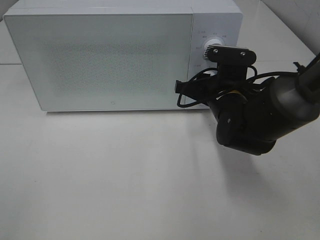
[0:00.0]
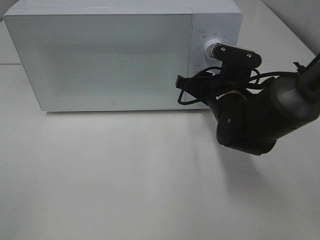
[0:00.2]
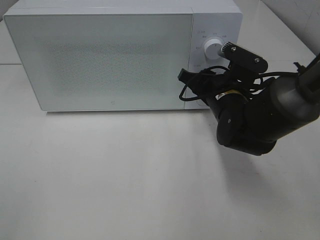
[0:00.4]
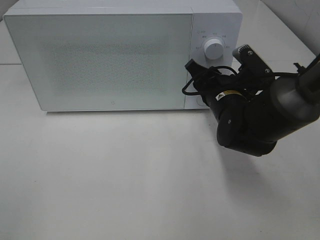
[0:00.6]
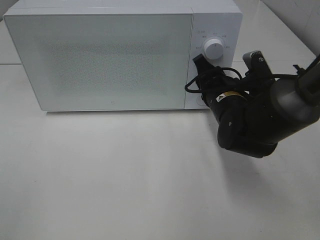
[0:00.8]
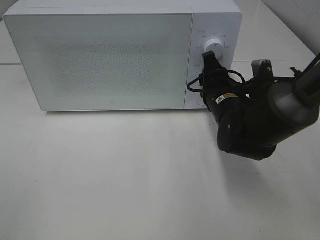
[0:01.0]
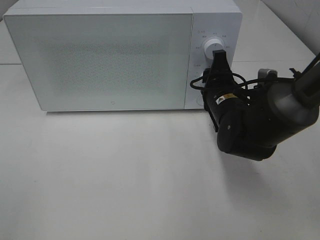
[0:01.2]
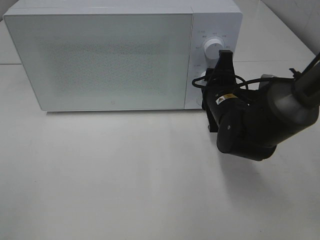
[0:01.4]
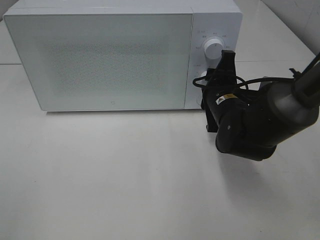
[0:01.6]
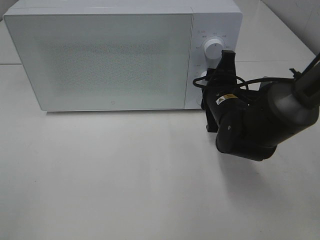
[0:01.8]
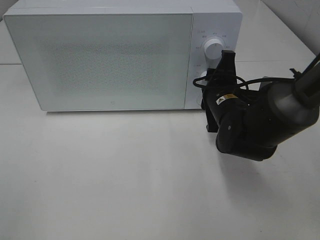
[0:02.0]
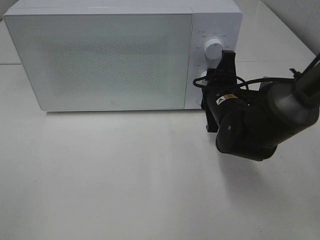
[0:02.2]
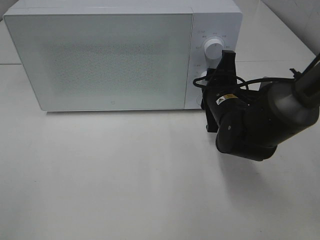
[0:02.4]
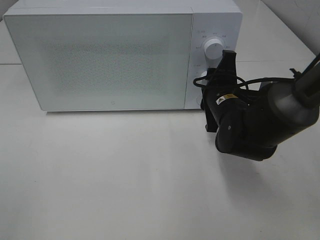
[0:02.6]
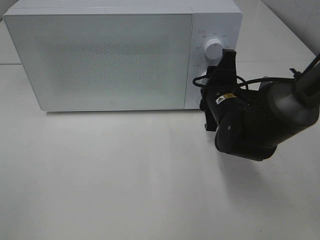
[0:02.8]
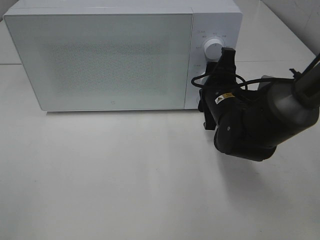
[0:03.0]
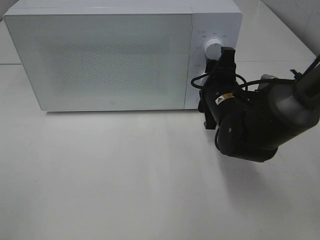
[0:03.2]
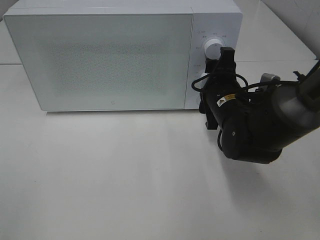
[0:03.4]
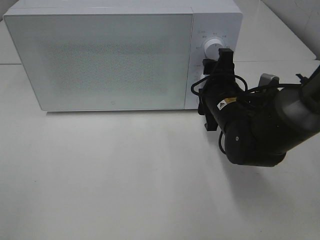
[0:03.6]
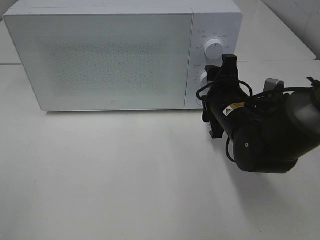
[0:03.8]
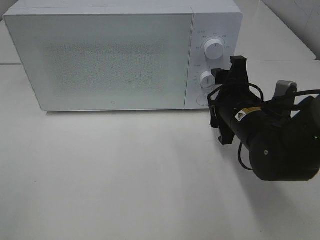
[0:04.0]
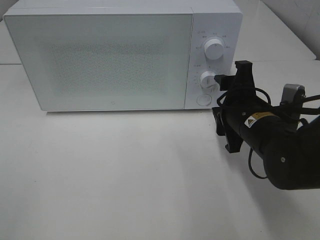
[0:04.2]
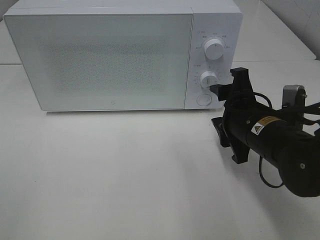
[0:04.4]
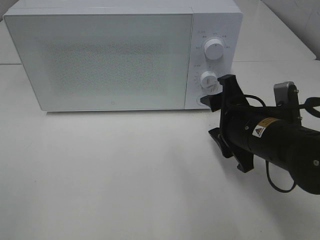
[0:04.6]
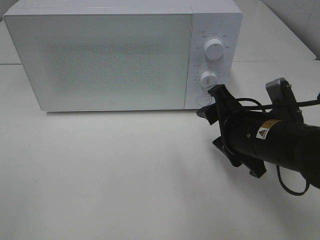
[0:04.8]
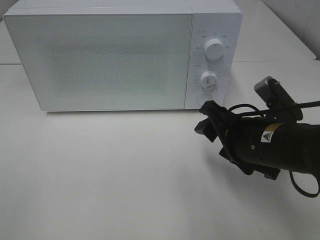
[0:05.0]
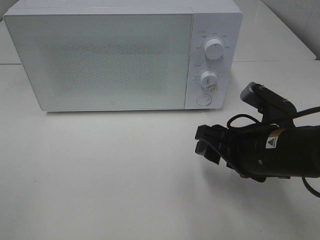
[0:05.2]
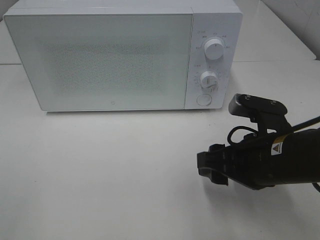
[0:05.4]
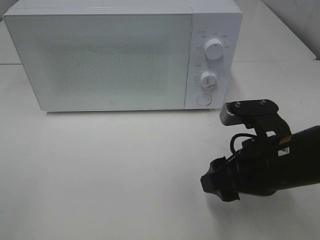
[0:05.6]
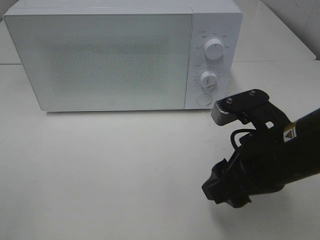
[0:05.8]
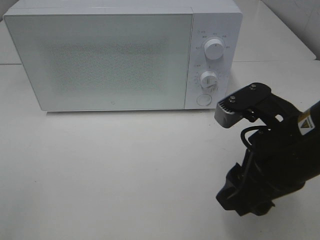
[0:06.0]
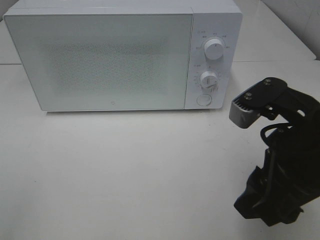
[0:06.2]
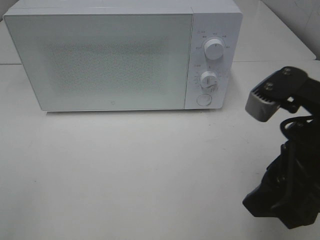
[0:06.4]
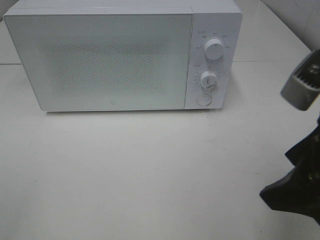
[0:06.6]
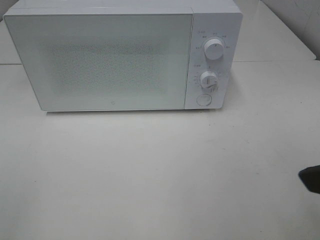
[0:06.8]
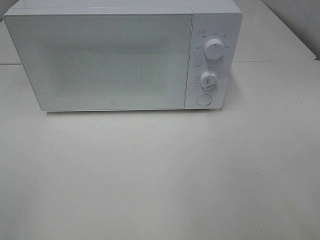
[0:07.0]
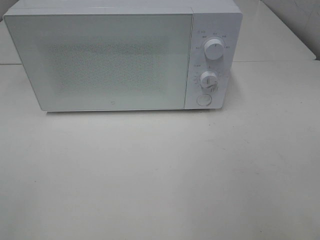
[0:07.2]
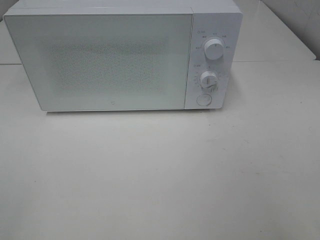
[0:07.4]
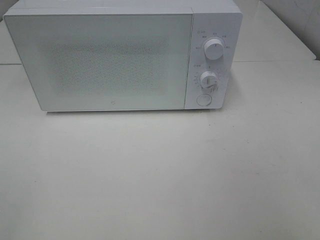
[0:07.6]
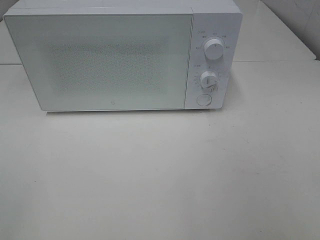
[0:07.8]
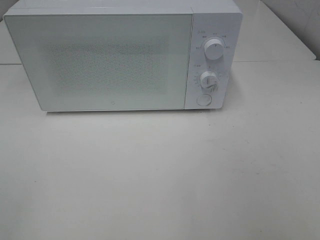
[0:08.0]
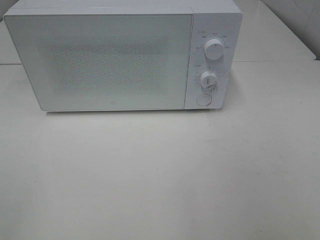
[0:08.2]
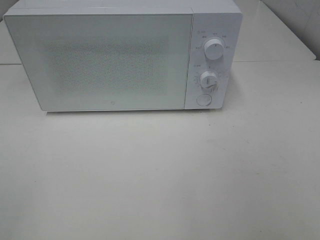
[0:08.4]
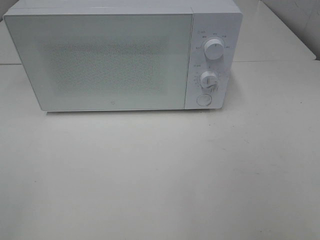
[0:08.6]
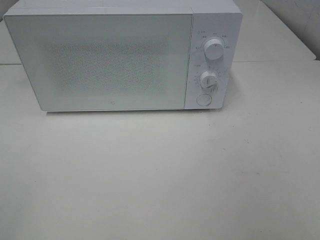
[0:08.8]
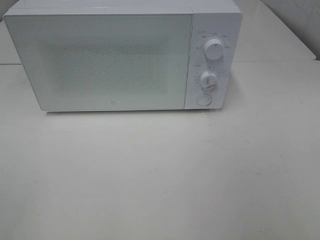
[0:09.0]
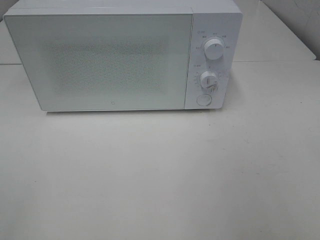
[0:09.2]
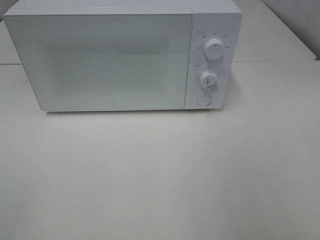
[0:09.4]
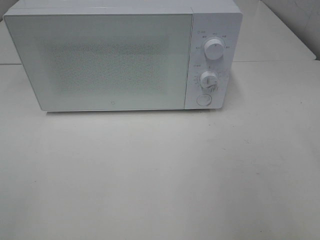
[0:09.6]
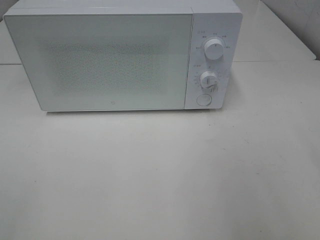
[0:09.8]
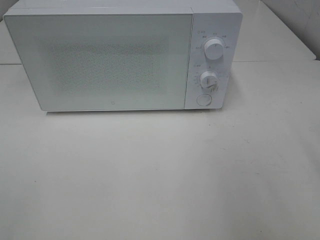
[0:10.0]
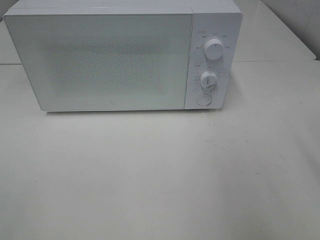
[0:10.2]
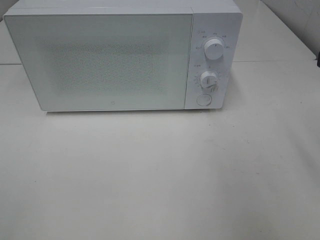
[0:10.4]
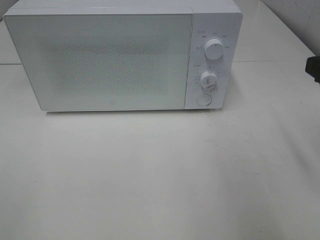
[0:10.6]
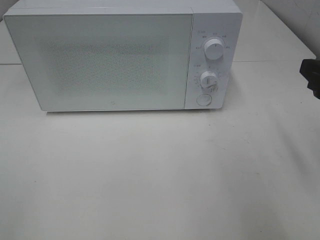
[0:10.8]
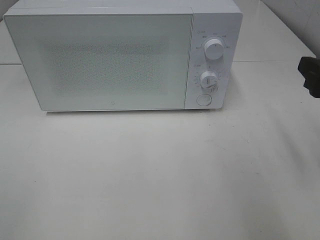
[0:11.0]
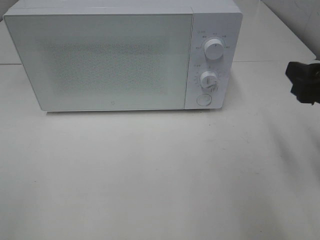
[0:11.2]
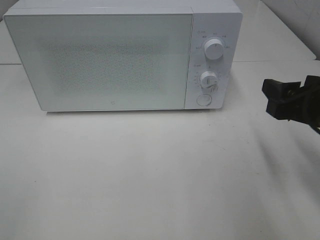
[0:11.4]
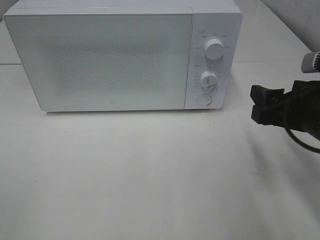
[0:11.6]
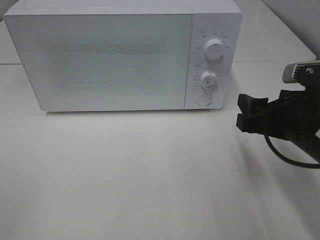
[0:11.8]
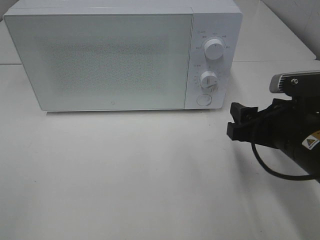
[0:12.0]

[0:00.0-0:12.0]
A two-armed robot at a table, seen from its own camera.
Task of the whole recording: Heat Sandwich.
Step, 0:00.0 to 0:03.6: Right hand: twist timer button.
0:01.6 to 0:03.0: Neither gripper changes place.
0:03.0 to 0:04.4: The right gripper heads backward, covering some 10 cm.
0:04.4 to 0:06.0: The right gripper moves backward and upward, roughly 10 cm.
0:06.0 to 0:07.6: The right gripper travels backward, to the right and upward by roughly 20 cm.
0:10.4 to 0:12.0: The right gripper shifts some 15 cm downward and to the left.

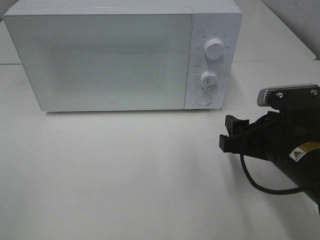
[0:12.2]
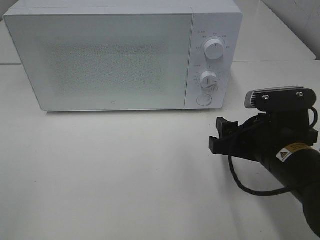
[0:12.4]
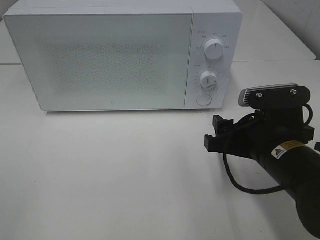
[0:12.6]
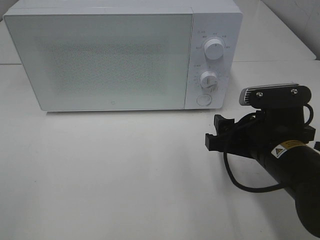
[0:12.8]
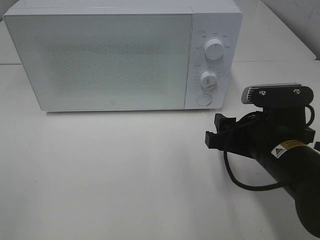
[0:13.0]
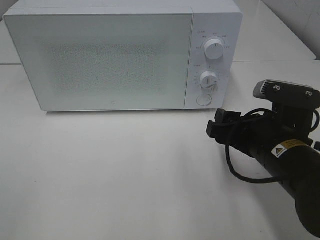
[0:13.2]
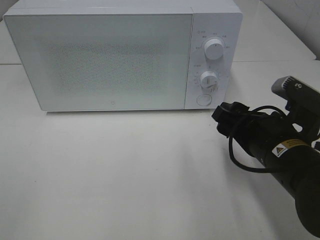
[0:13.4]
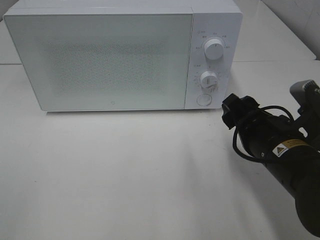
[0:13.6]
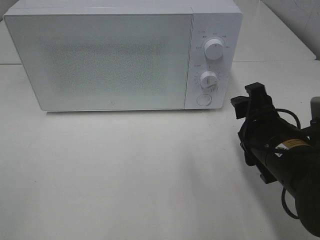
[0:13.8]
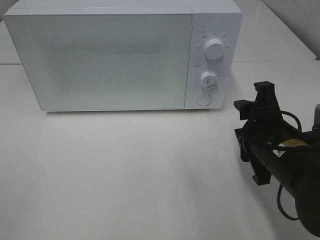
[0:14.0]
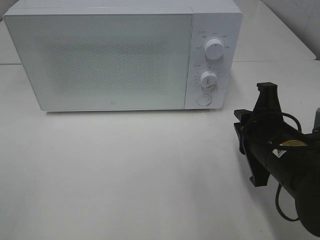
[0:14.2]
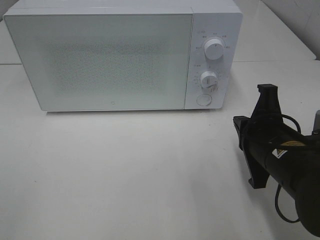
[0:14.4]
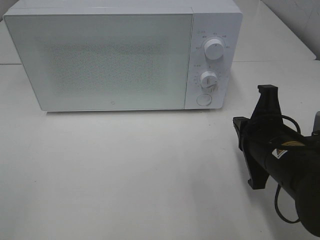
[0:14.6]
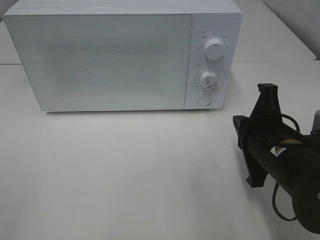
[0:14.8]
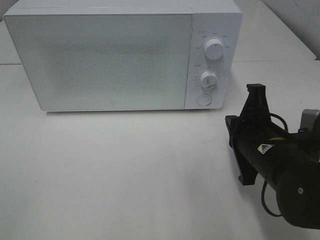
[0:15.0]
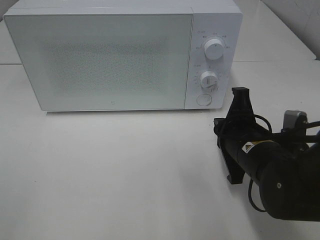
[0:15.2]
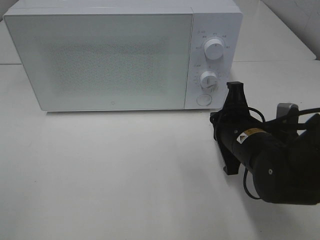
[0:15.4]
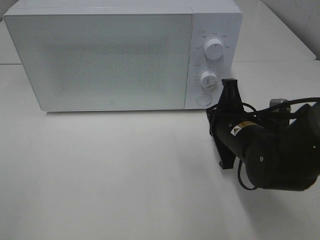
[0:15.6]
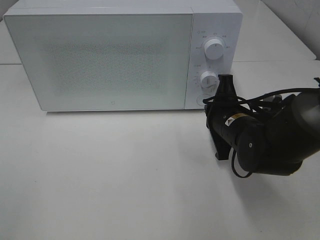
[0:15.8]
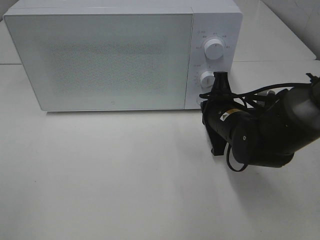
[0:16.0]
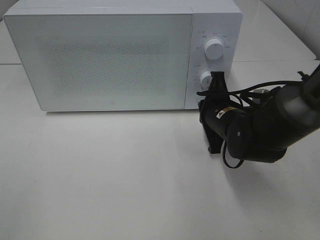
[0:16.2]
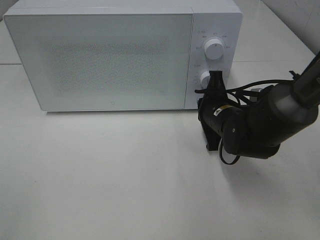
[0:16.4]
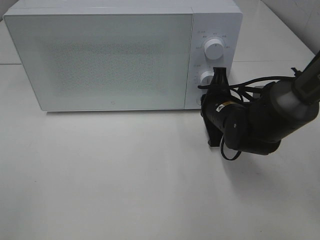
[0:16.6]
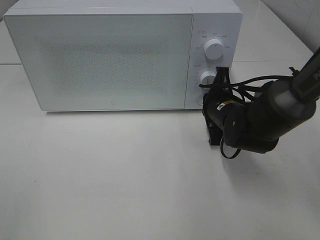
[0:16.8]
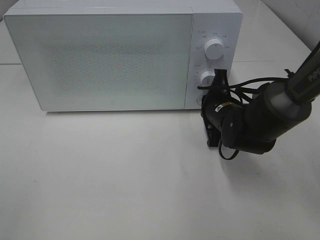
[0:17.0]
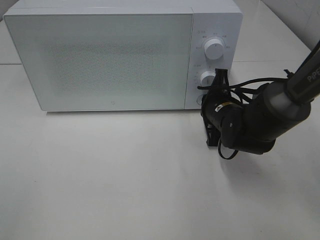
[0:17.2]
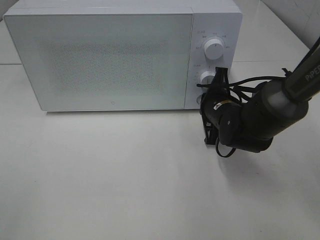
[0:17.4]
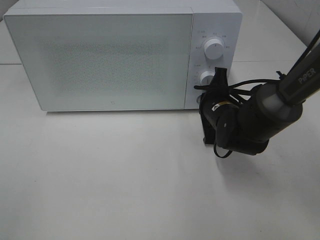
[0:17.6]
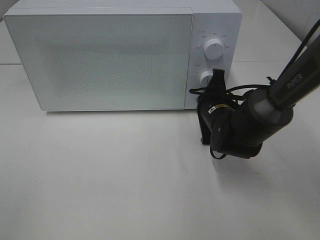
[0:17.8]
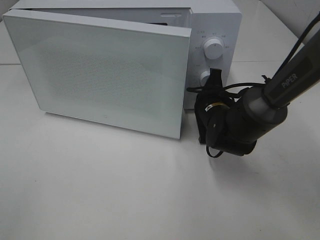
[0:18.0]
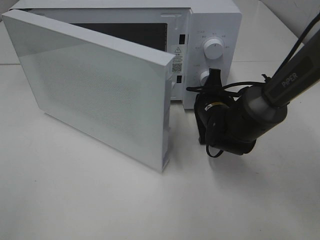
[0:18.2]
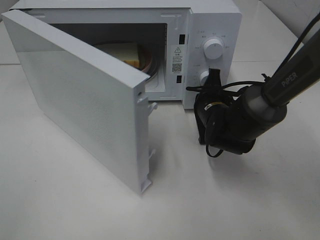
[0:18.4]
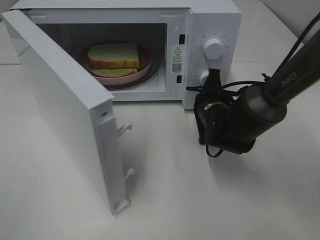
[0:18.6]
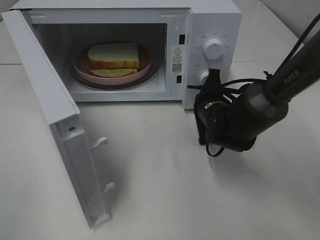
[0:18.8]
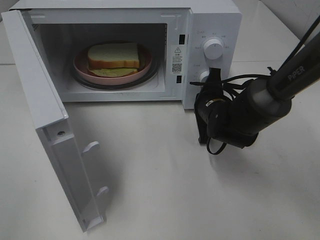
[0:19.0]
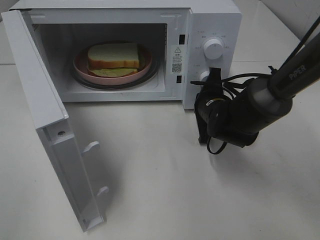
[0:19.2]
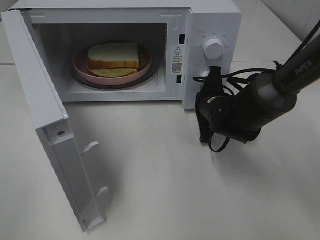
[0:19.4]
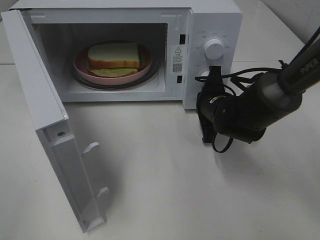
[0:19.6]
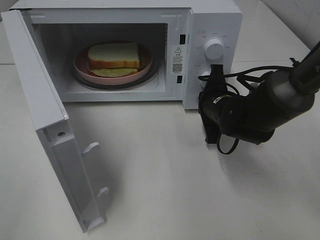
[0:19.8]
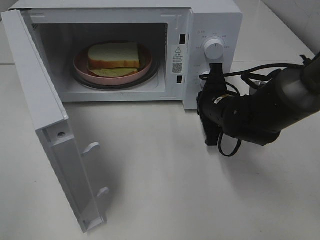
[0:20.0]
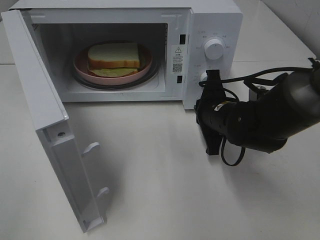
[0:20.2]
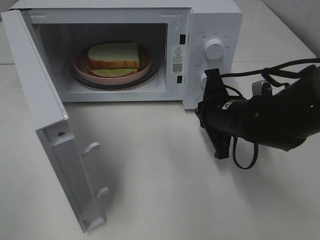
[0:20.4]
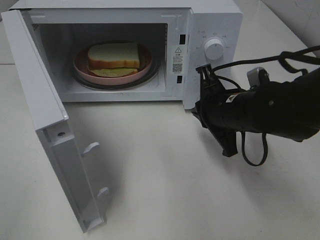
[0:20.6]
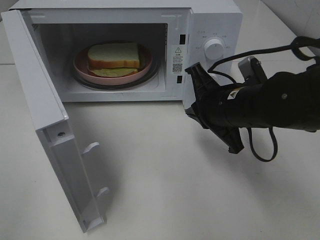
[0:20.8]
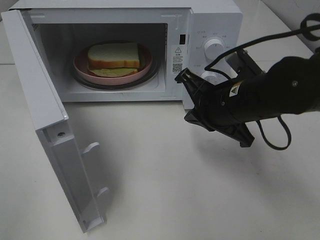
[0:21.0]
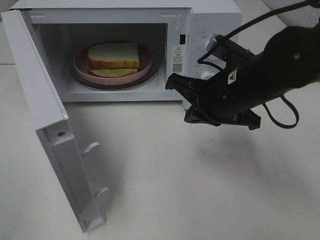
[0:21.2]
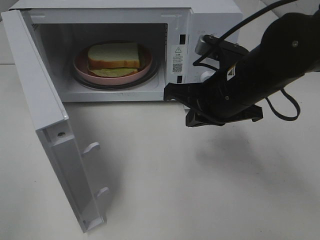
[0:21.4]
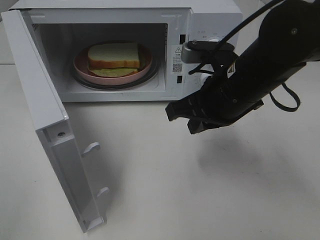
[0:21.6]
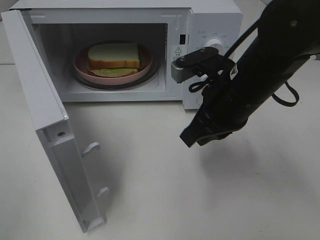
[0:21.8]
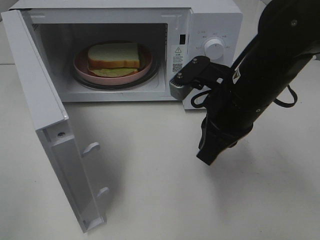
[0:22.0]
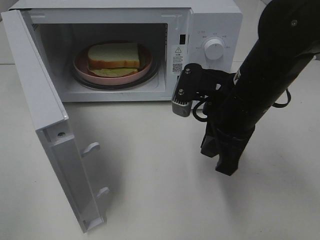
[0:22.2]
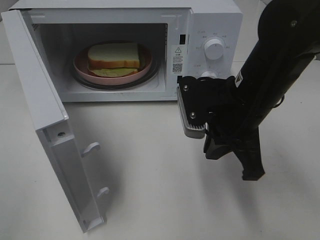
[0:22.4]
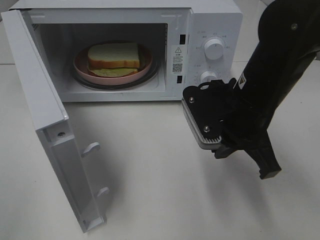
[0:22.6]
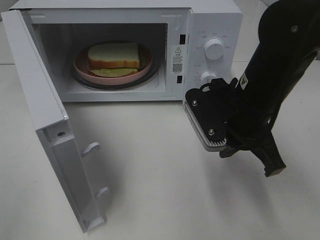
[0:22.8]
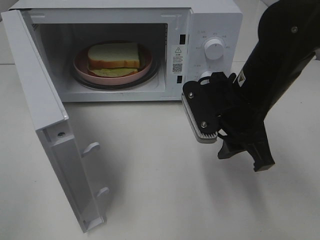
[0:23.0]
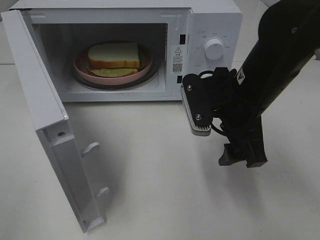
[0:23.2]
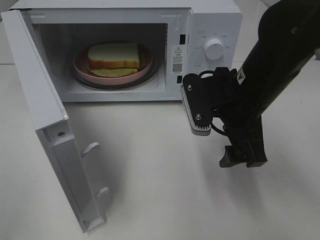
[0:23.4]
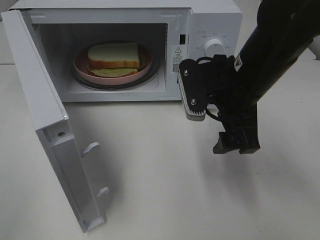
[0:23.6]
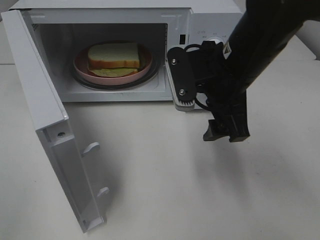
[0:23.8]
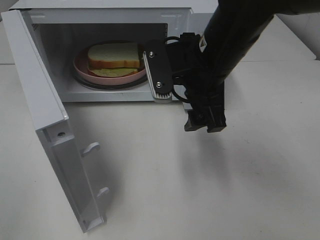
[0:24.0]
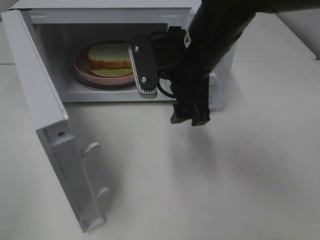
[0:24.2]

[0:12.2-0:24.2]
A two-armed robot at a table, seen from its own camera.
Task of the whole recording: Heat Sandwich.
Step, 0:12.2 to 0:19.8: Right hand: press the switch.
0:13.8 to 0:15.2: The right gripper closes.
0:15.2 to 0:16.6: The right gripper heads forward, covering about 10 cm.
0:19.8 to 0:21.2: The right gripper travels upward and backward by some 10 cm.
0:22.6 to 0:24.2: The right gripper goes about 5 cm to the left, and opens.
